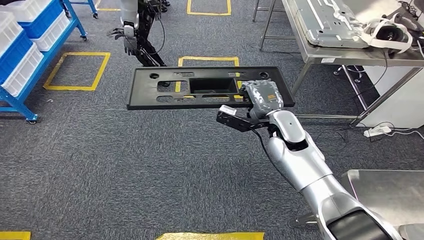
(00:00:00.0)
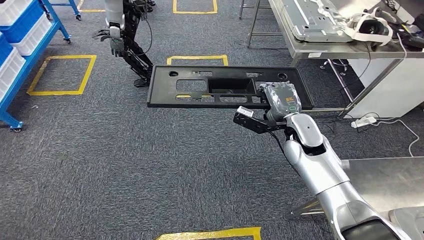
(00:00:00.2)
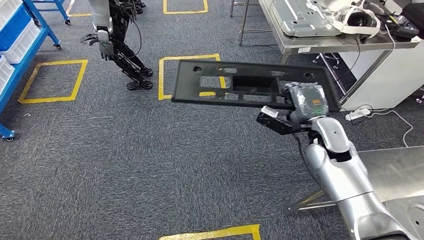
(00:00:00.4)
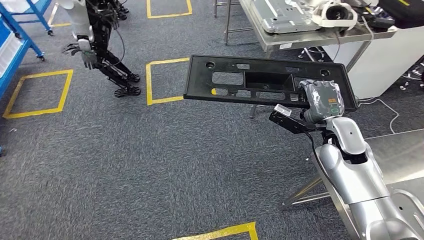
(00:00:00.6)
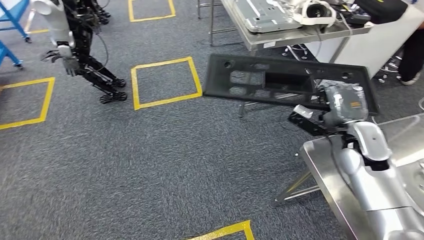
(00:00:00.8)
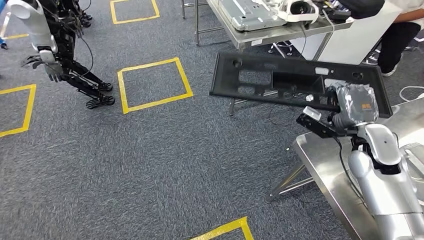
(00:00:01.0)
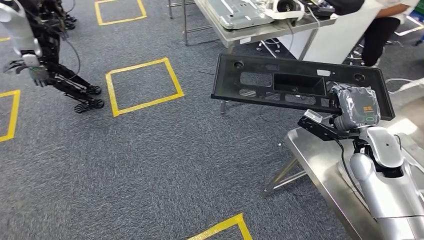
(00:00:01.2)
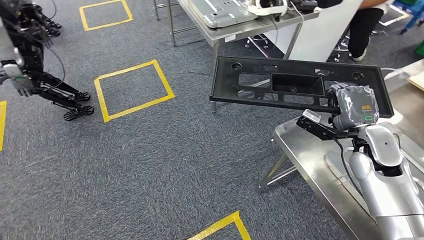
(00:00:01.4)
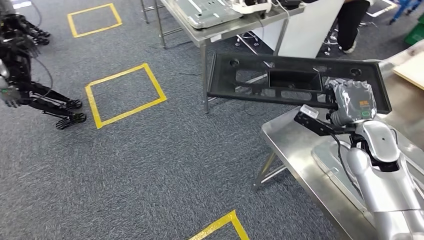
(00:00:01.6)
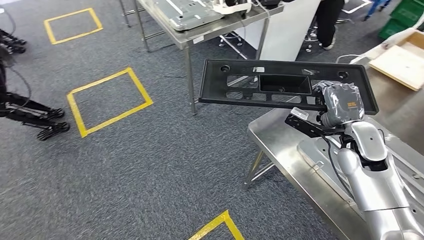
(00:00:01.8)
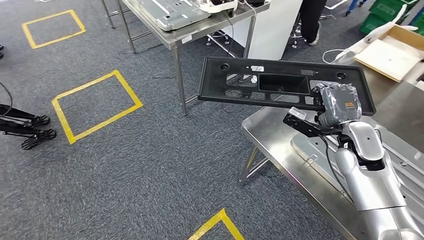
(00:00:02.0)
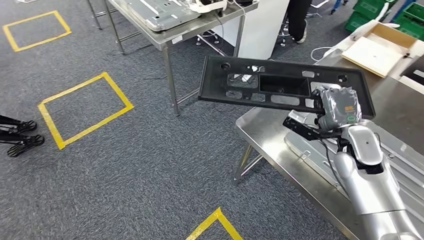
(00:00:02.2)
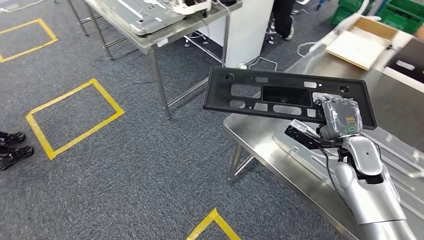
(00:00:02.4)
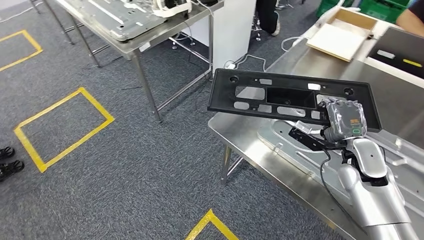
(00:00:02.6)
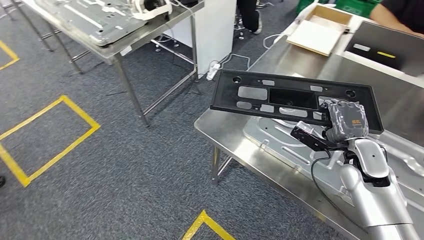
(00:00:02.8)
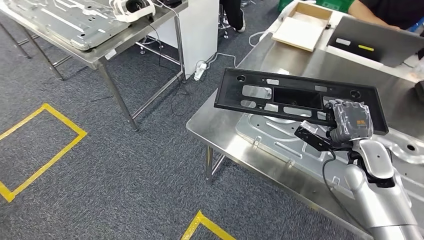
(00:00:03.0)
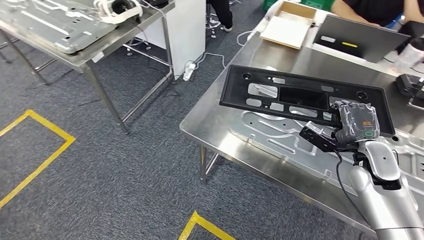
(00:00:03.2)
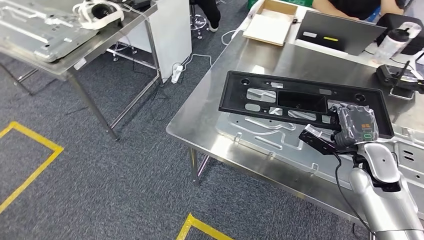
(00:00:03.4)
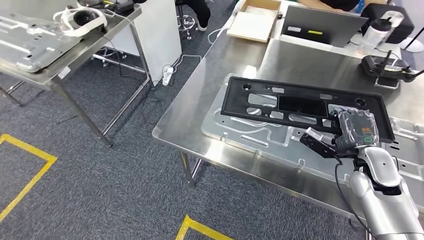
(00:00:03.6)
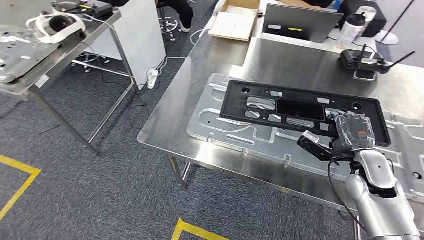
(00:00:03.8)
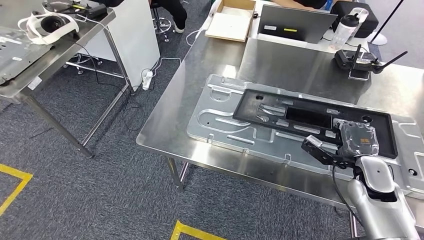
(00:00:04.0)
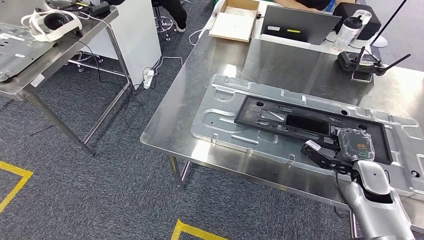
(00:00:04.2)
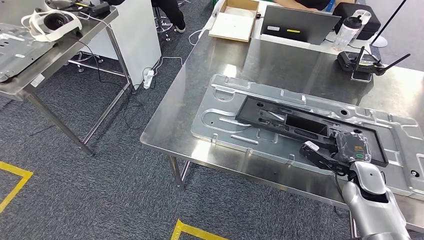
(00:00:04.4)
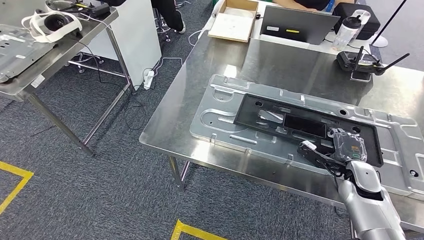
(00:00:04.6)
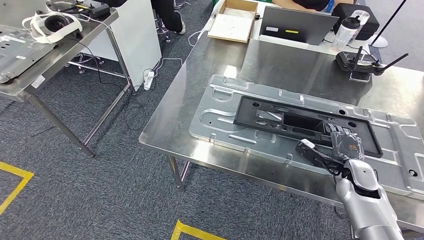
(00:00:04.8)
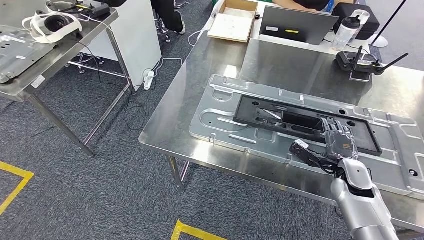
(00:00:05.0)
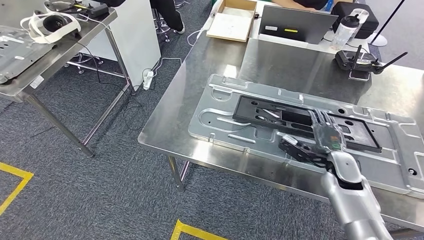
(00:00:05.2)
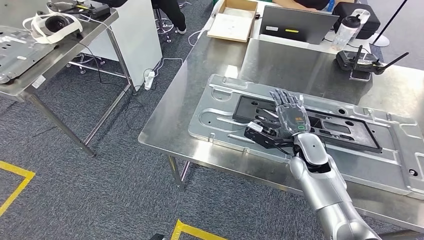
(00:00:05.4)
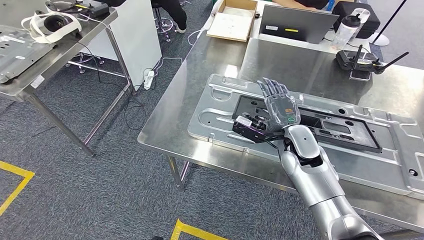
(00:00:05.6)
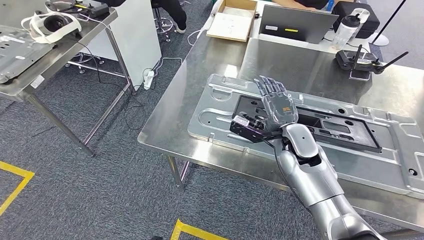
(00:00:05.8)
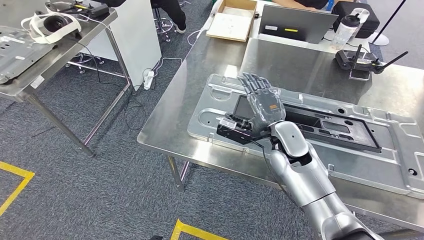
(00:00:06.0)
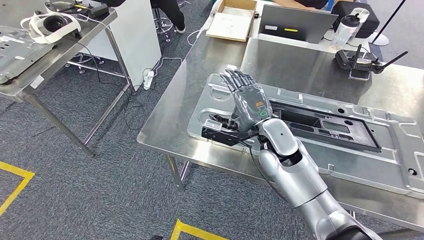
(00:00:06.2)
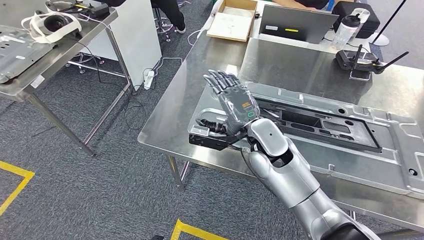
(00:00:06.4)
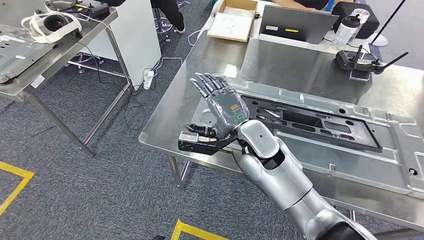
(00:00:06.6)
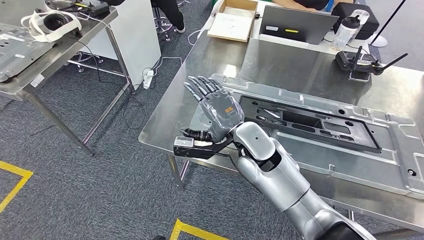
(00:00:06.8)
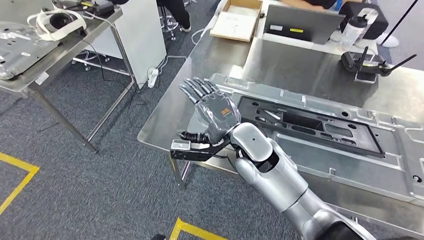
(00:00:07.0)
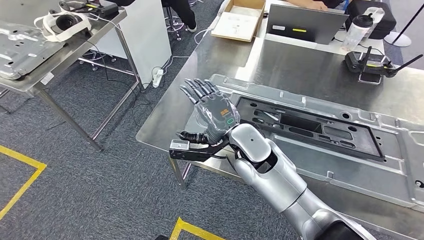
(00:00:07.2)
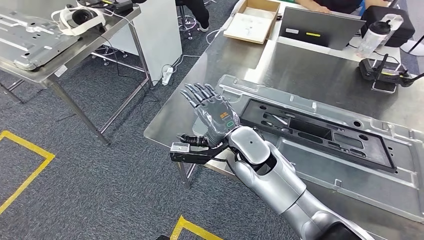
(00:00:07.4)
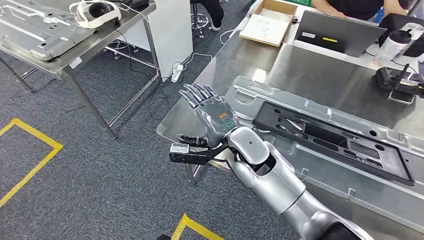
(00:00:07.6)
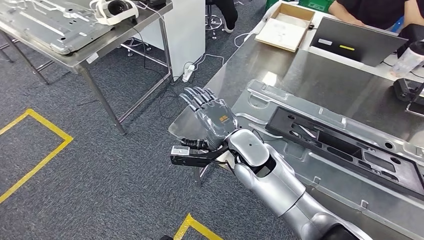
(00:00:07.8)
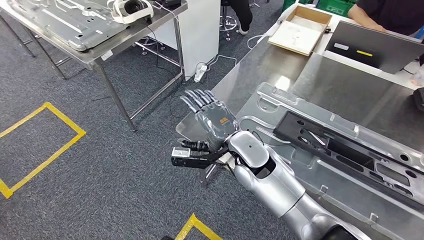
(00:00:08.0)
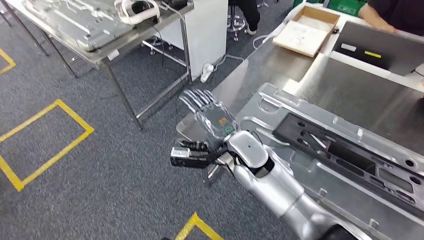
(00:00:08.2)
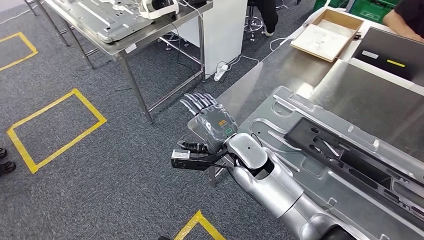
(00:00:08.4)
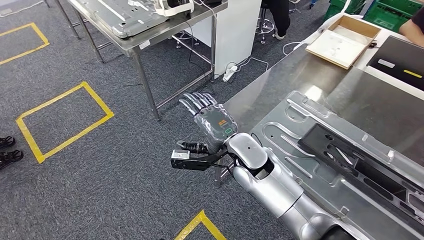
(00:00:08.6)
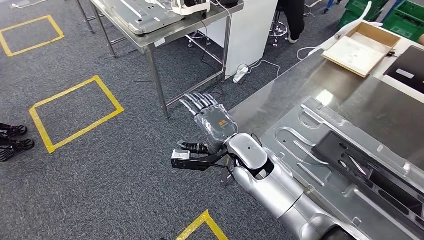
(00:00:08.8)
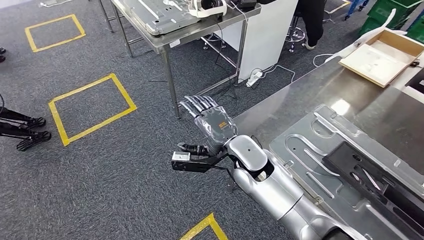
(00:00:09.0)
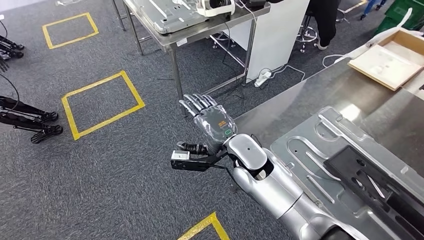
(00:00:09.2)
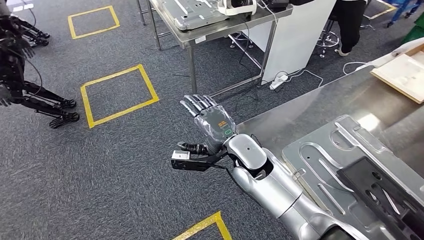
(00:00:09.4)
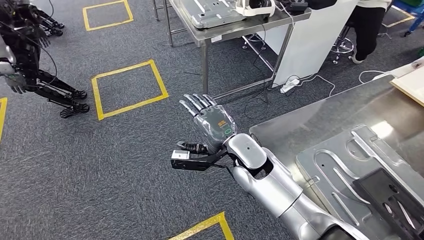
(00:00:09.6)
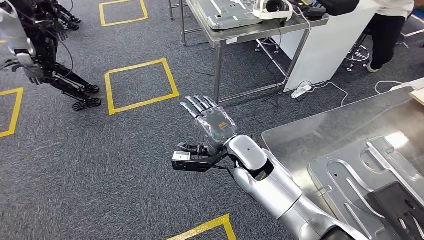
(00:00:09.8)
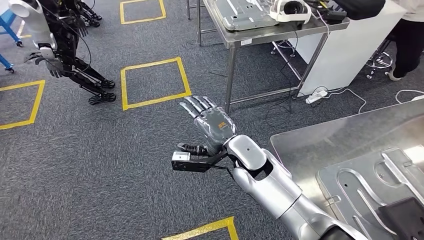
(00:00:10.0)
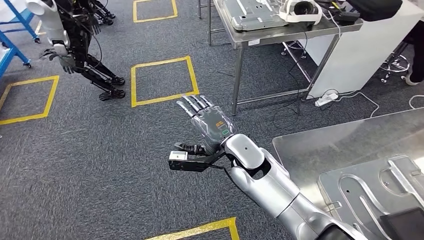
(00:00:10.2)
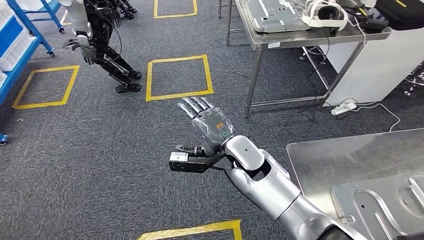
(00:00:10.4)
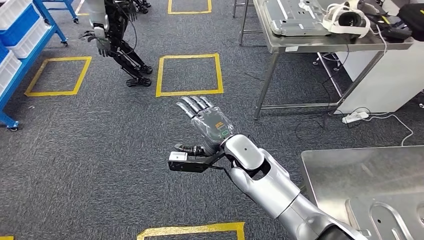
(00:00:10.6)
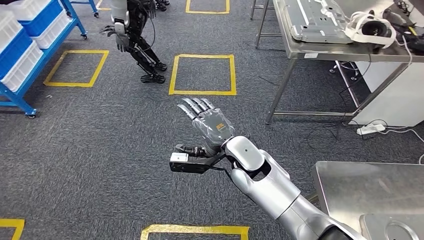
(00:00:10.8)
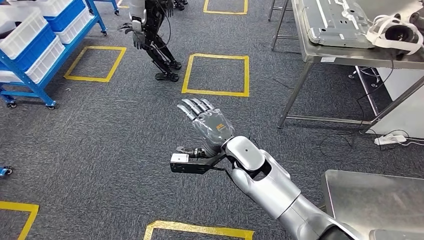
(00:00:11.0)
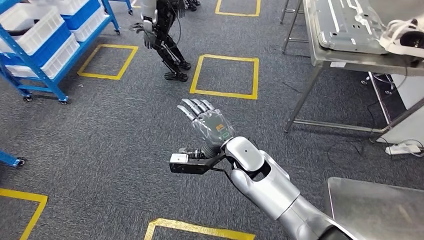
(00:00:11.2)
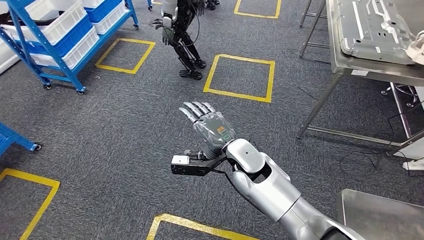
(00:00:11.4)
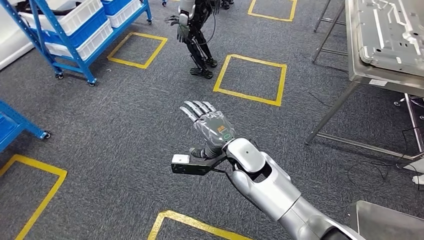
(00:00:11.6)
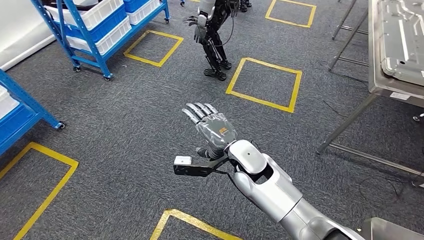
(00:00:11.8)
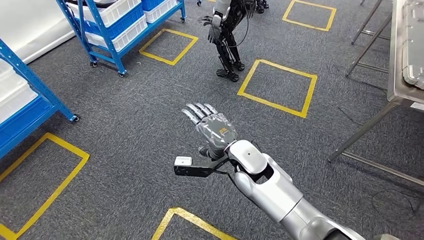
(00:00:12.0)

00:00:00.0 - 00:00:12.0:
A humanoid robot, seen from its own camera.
Step, 00:00:01.4 - 00:00:09.6: Insert the large material into the corresponding slot on the workbench.

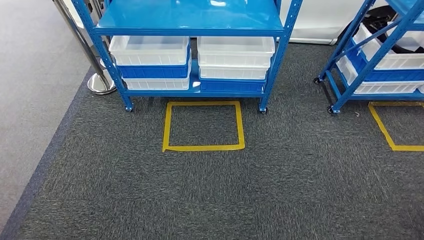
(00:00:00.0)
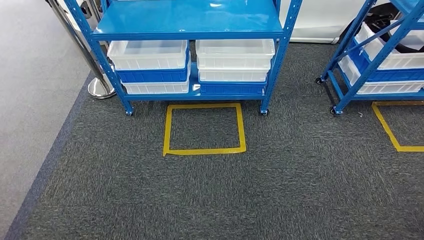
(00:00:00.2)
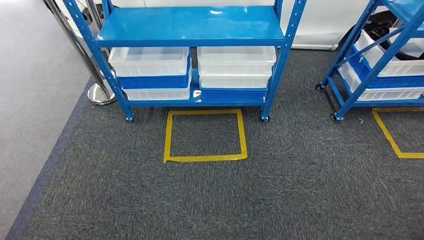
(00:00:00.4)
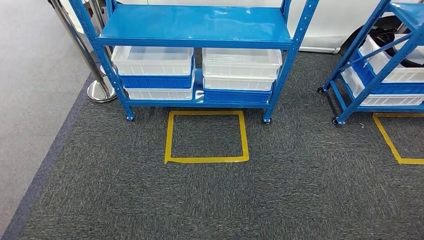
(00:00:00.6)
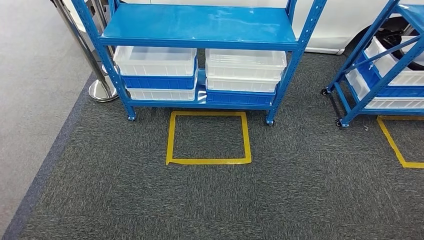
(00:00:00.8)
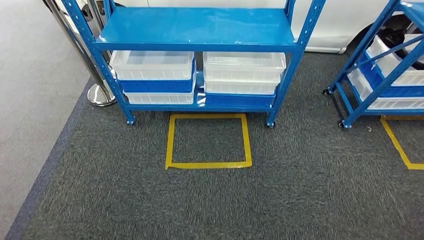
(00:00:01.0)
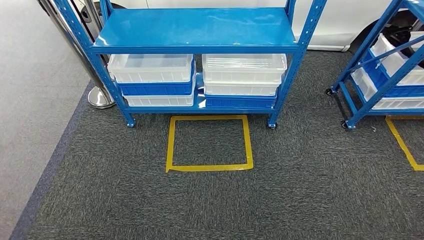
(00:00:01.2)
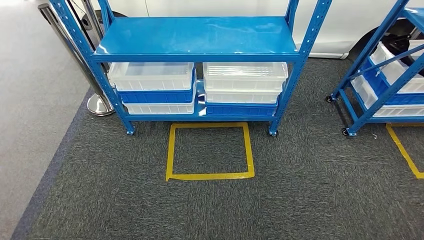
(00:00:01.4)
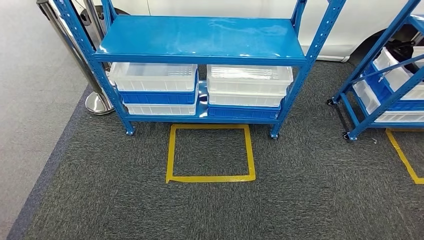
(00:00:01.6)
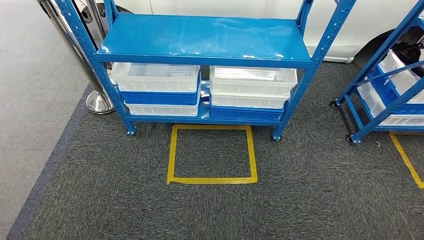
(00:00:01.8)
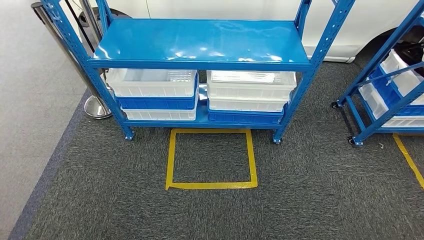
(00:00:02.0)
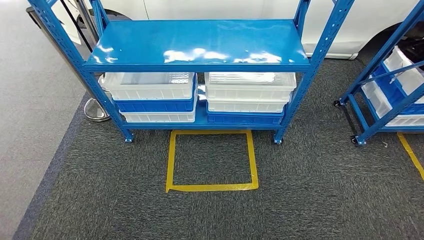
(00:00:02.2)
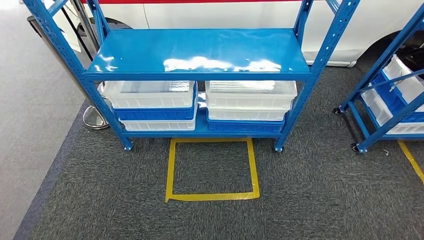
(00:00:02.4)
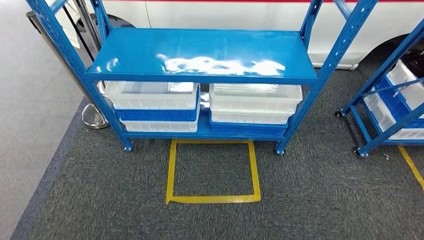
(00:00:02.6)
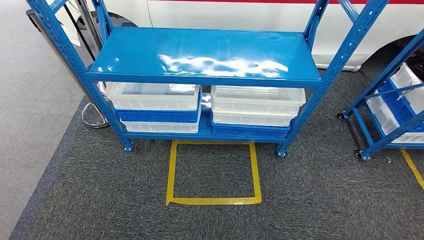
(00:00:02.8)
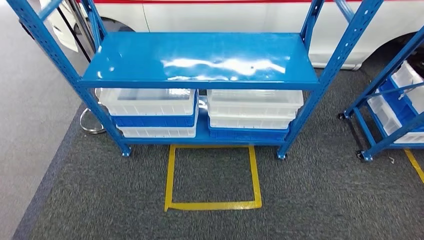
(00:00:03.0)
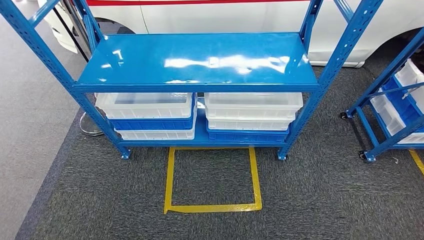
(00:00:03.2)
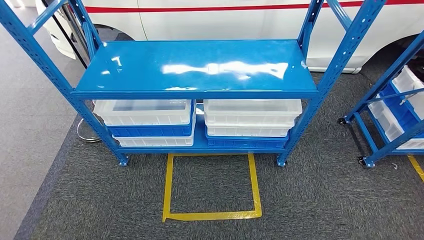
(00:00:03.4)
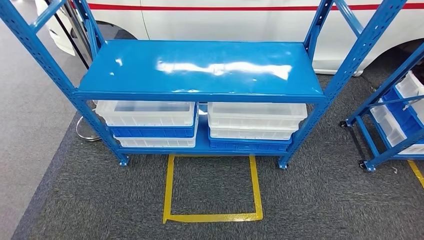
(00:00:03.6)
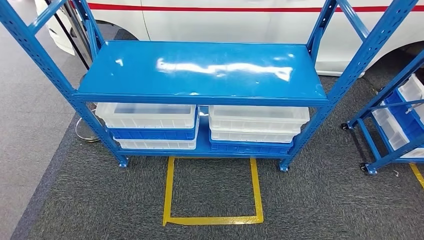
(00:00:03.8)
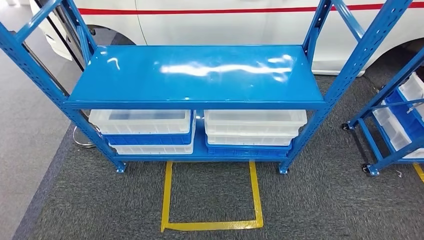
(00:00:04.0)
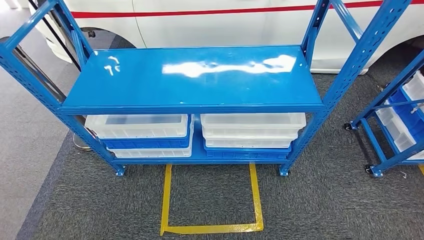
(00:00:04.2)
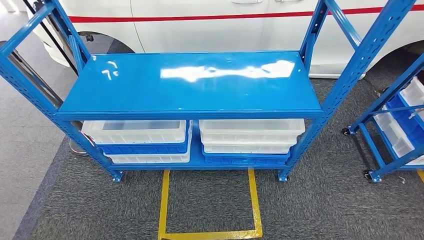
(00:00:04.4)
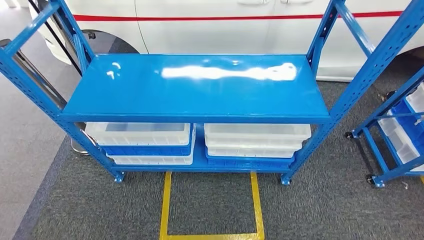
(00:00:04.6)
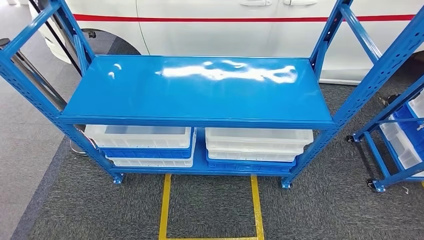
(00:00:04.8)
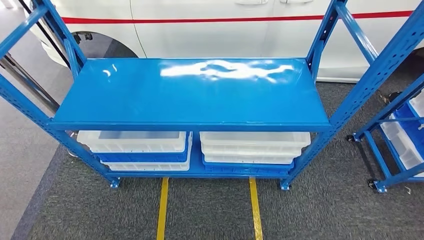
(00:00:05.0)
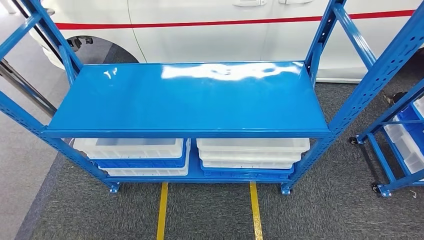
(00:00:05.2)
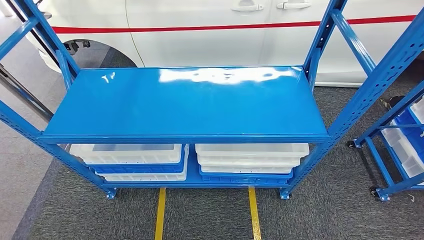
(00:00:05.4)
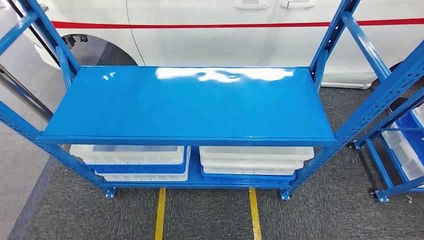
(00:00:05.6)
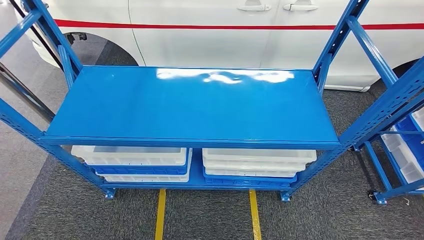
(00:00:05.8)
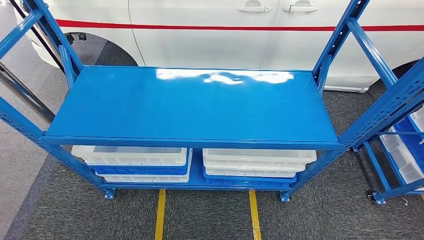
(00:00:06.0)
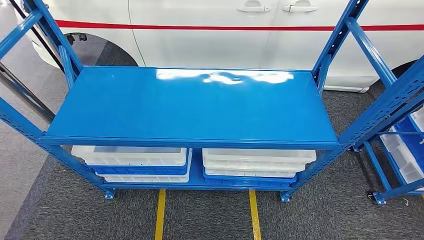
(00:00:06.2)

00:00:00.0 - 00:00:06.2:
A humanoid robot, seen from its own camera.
Step, 00:00:00.0 - 00:00:06.0: Move to the initial position of the shelf.
